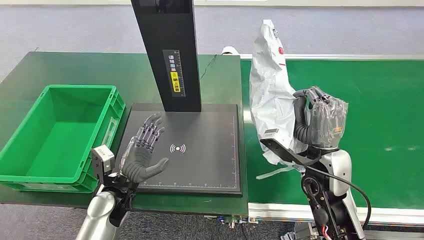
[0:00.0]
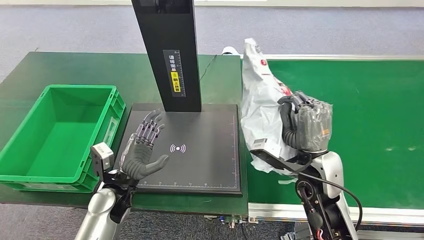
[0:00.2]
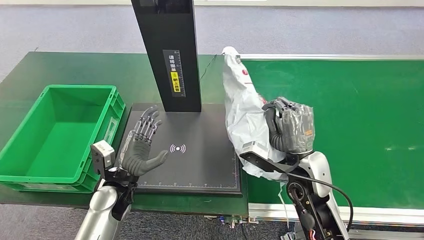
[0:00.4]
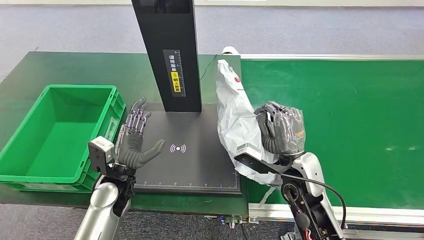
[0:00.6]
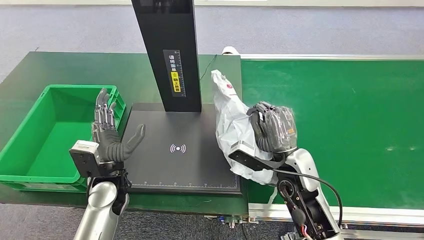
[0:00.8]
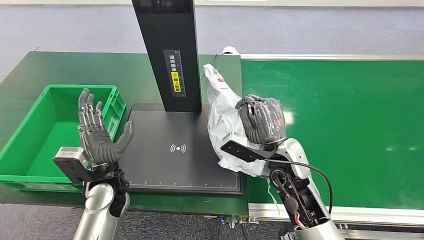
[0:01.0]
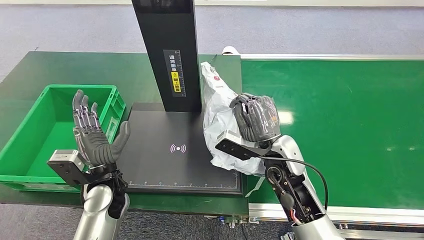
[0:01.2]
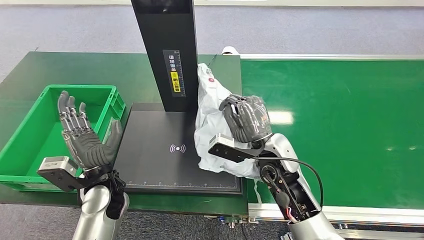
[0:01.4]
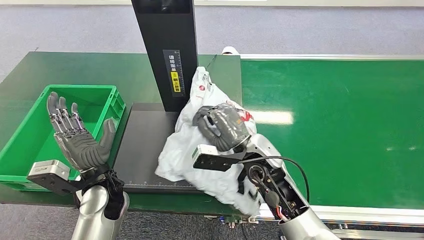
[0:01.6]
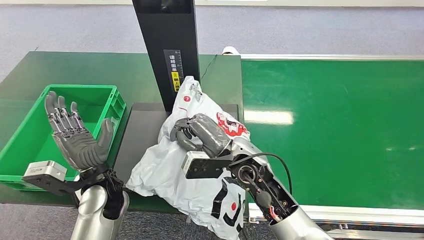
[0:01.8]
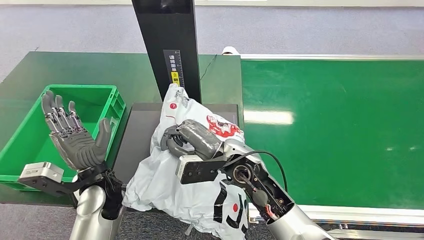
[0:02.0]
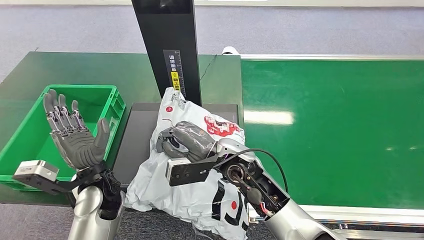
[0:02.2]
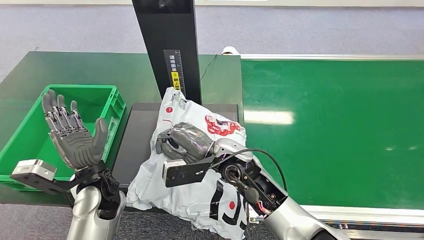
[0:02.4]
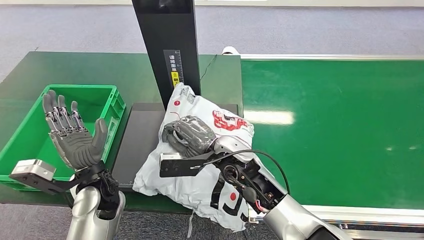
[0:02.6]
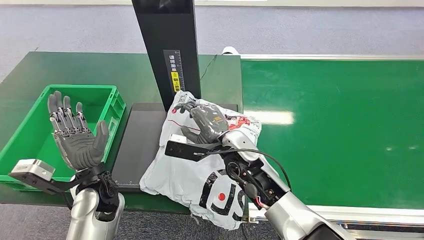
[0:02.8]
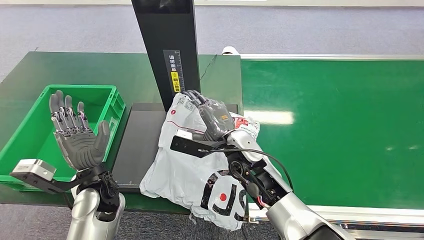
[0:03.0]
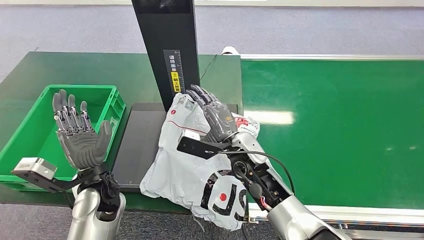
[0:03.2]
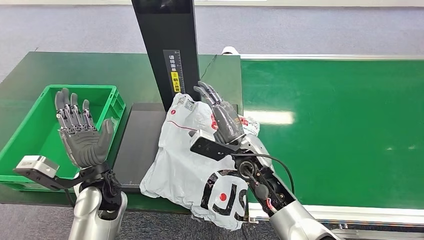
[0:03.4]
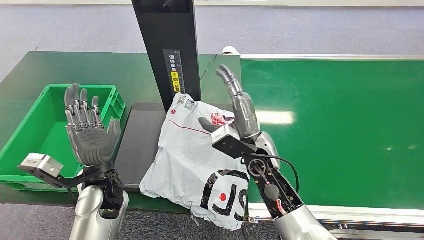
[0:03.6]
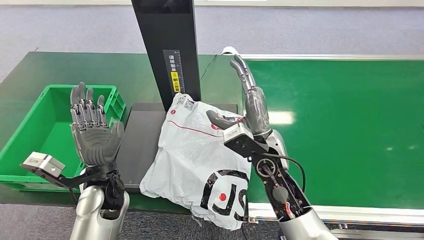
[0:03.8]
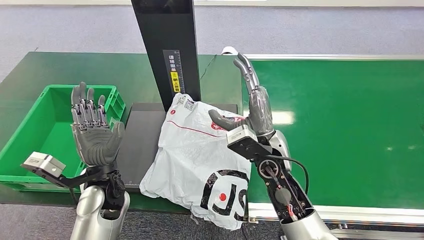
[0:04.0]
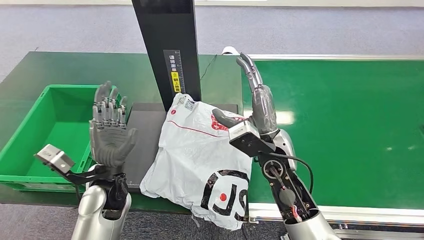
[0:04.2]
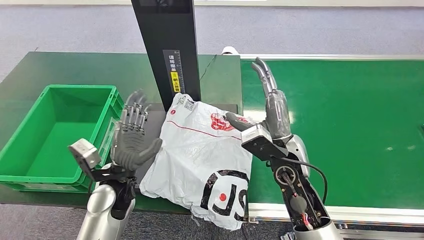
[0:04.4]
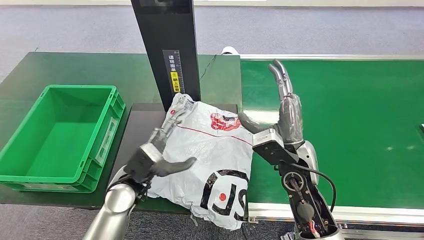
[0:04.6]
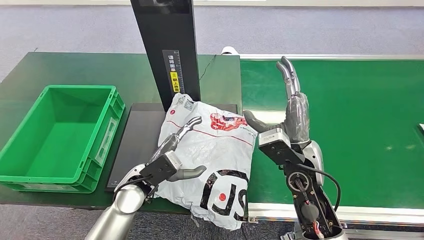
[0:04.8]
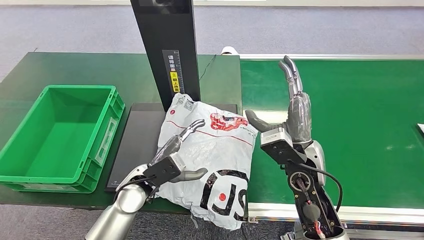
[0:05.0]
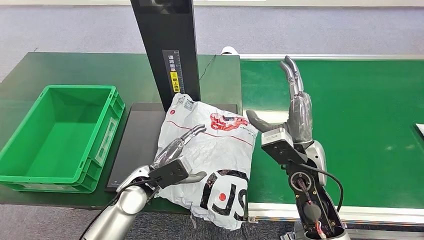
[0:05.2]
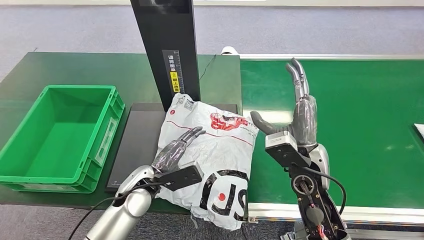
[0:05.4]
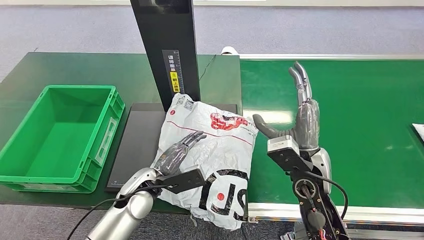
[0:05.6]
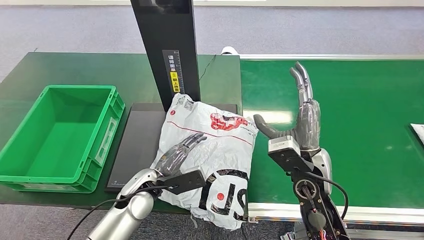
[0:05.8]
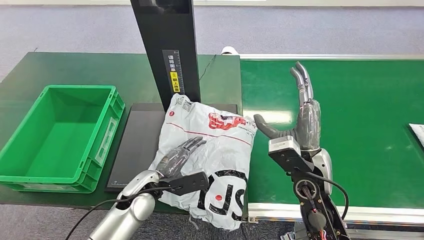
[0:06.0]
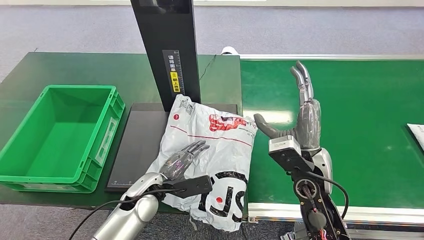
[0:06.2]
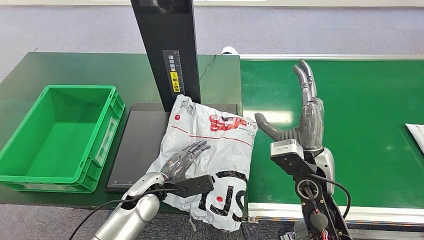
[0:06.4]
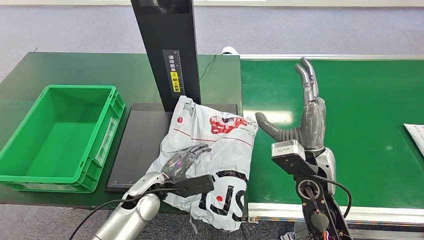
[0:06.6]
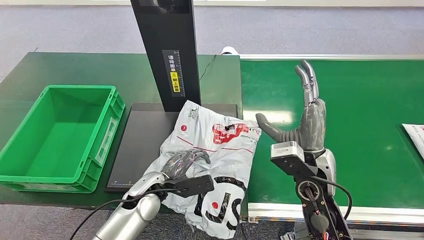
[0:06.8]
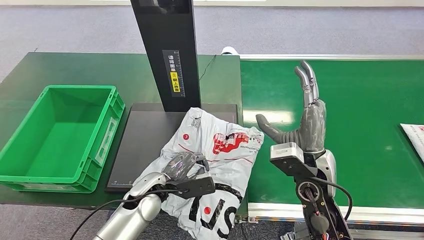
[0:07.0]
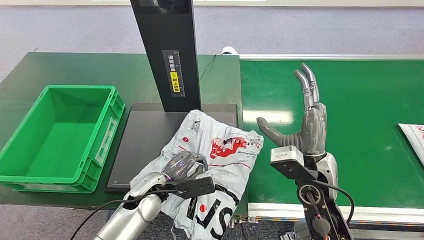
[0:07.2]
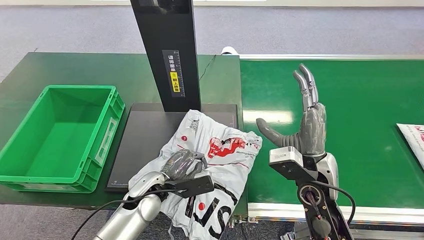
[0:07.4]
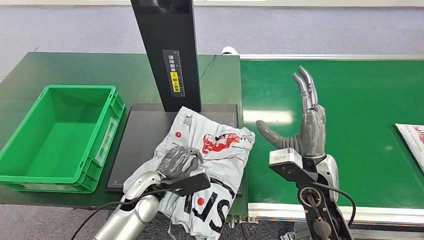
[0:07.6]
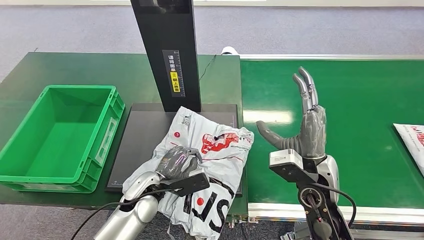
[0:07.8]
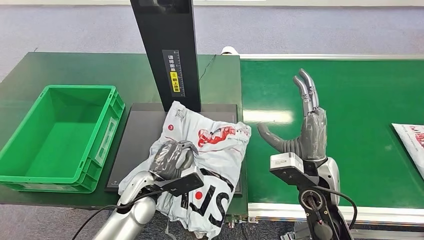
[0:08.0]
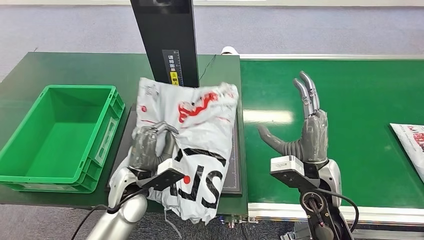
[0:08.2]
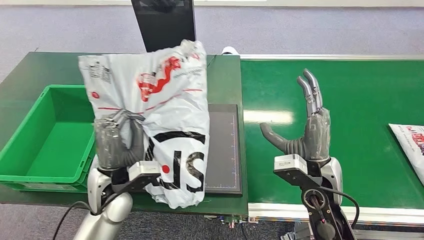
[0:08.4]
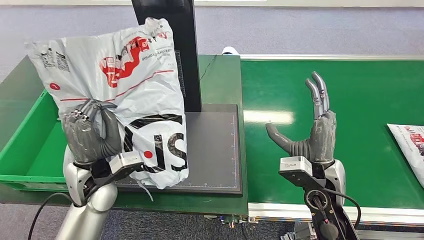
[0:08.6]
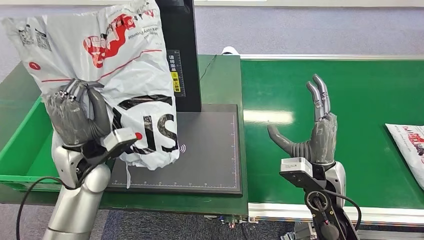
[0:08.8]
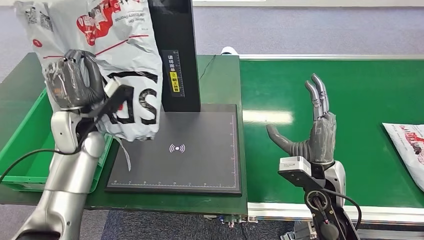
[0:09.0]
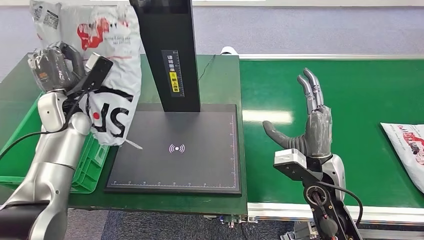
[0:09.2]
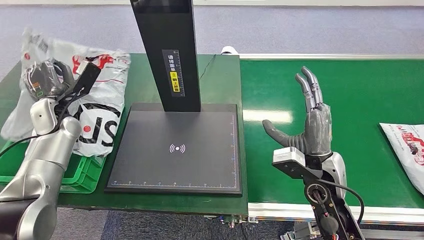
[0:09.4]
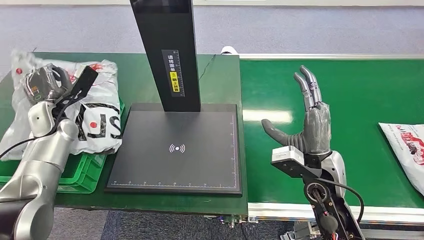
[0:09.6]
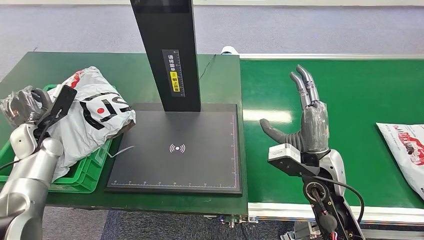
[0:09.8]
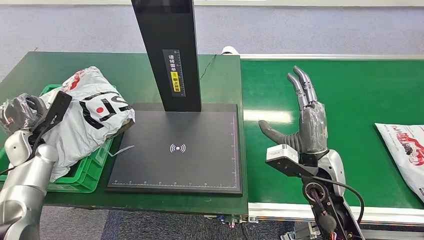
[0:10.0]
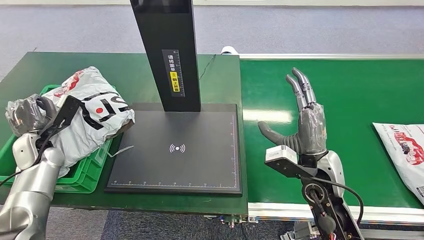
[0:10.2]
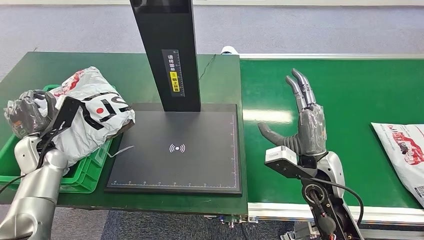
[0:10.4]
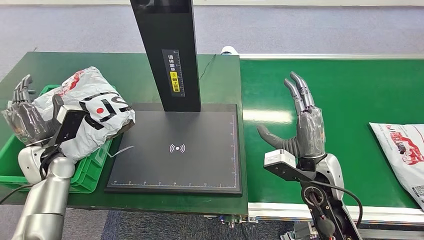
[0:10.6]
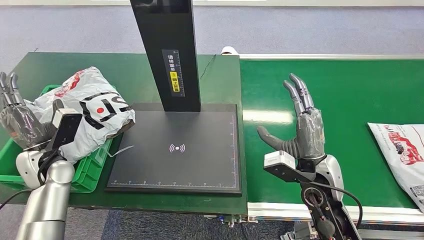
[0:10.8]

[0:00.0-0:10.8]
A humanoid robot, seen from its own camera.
Step, 0:08.6 to 0:08.8: Pick up the package from the inbound machine.
Step, 0:10.6 to 0:10.8: Place the package into the parcel locker.
0:04.6 to 0:06.2: The left hand shifts some 5 cm downward.
0:06.2 to 0:07.8: The hands make only small movements.

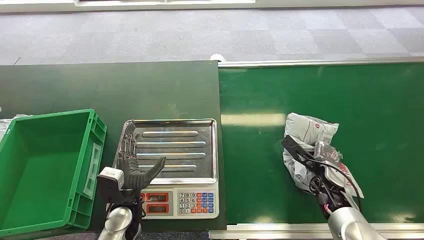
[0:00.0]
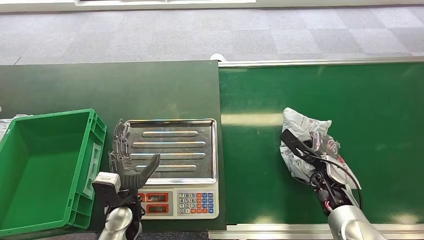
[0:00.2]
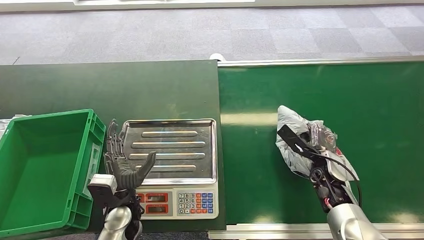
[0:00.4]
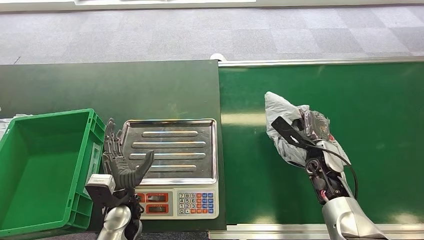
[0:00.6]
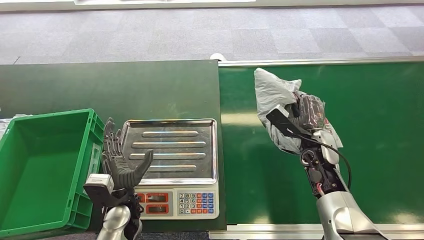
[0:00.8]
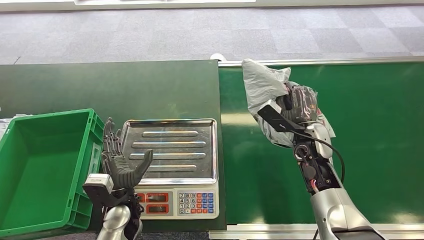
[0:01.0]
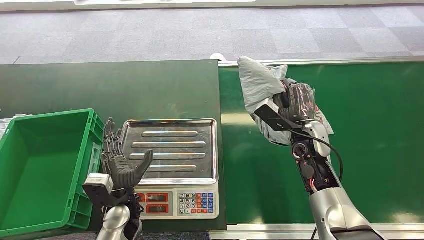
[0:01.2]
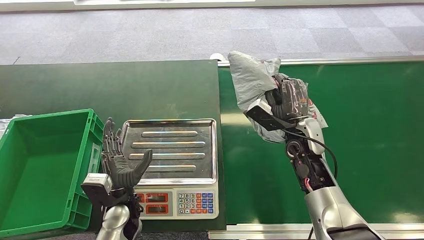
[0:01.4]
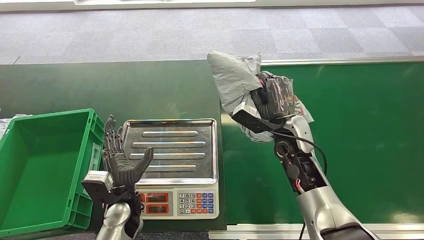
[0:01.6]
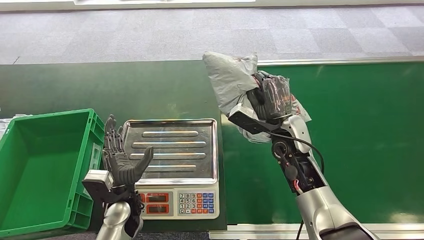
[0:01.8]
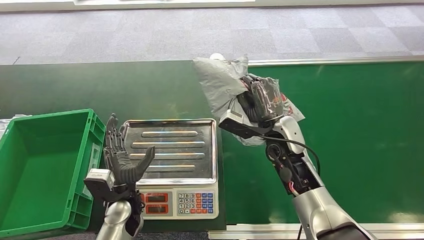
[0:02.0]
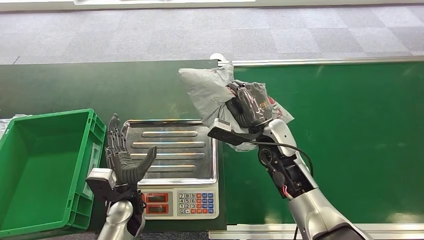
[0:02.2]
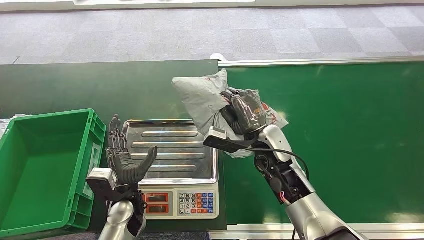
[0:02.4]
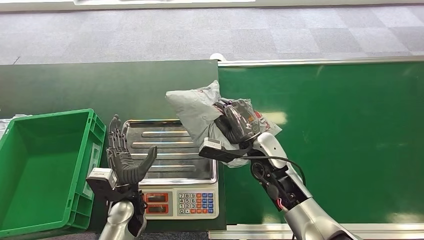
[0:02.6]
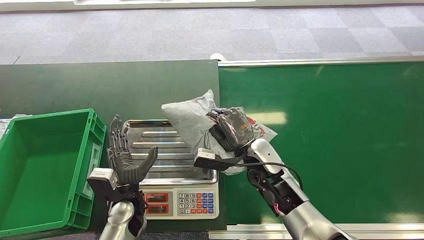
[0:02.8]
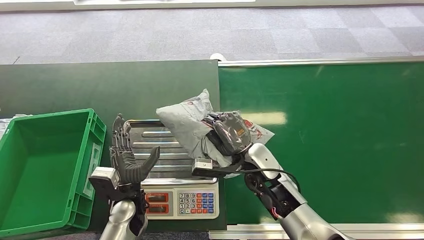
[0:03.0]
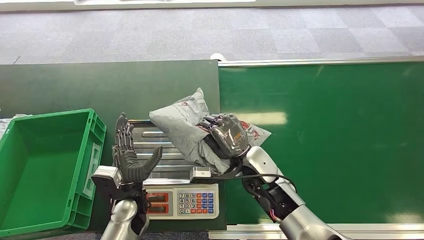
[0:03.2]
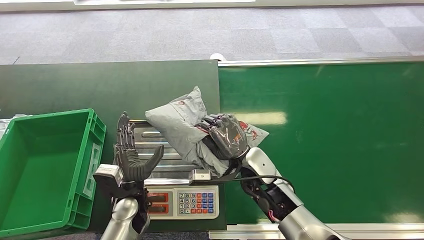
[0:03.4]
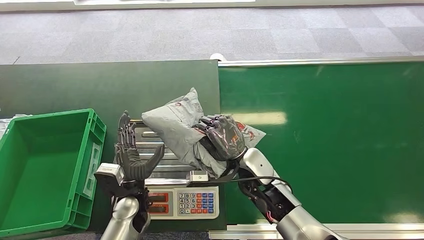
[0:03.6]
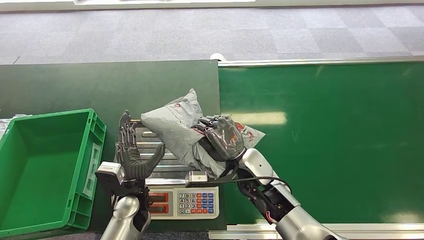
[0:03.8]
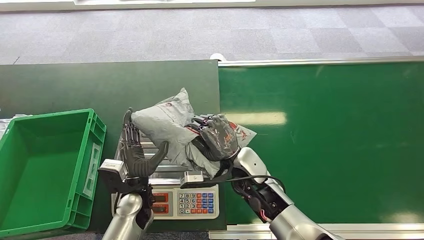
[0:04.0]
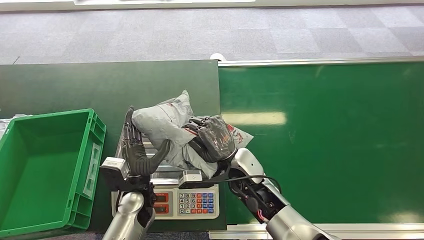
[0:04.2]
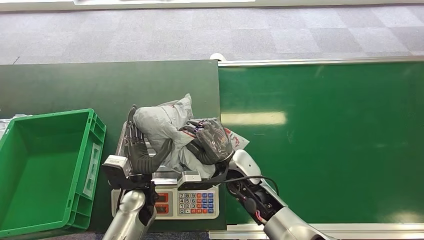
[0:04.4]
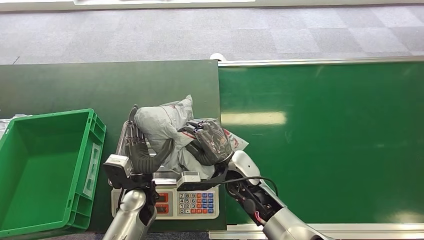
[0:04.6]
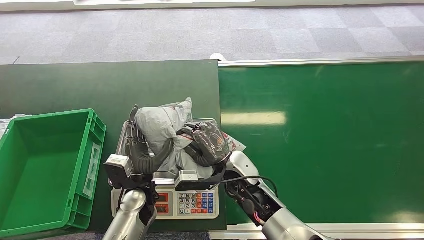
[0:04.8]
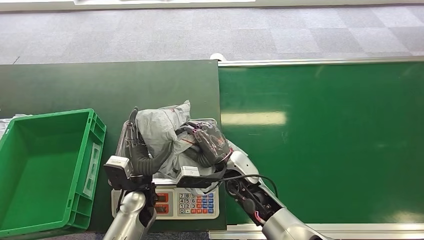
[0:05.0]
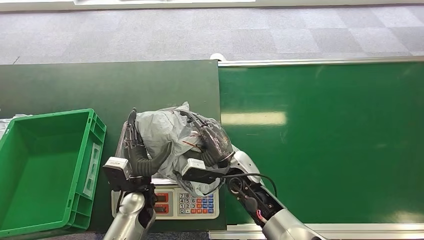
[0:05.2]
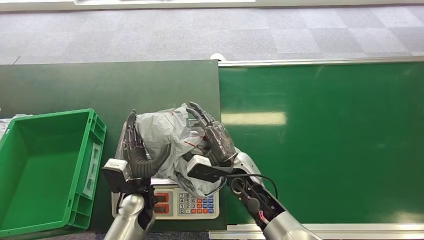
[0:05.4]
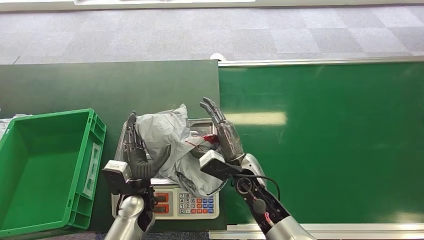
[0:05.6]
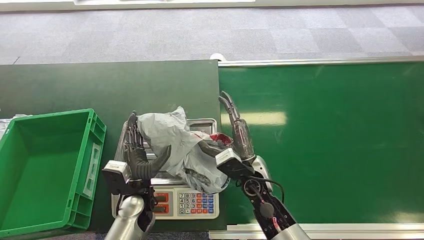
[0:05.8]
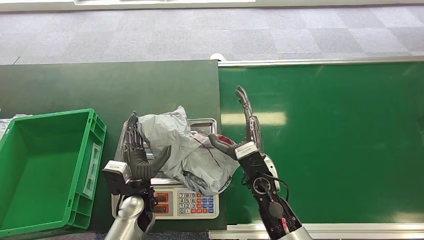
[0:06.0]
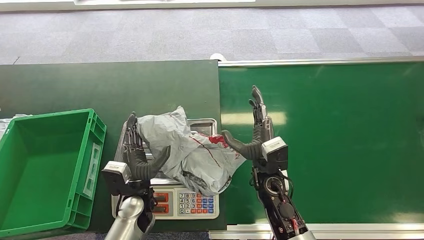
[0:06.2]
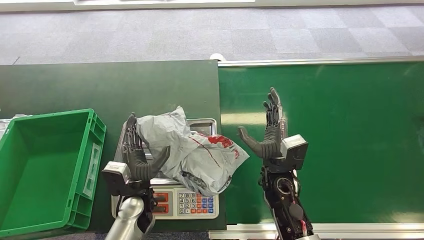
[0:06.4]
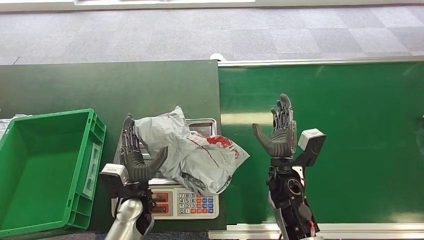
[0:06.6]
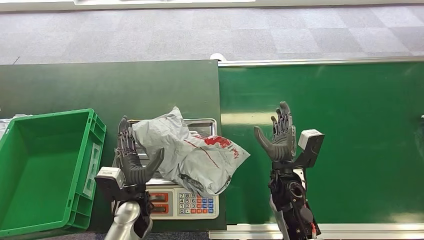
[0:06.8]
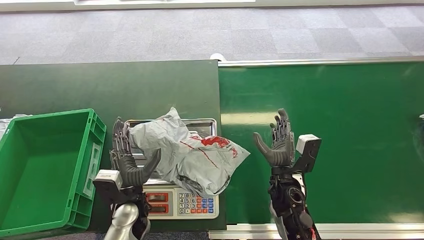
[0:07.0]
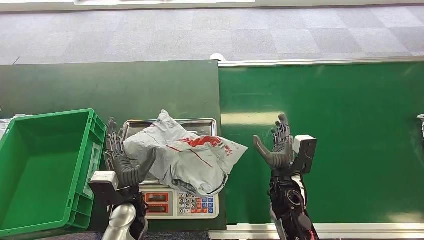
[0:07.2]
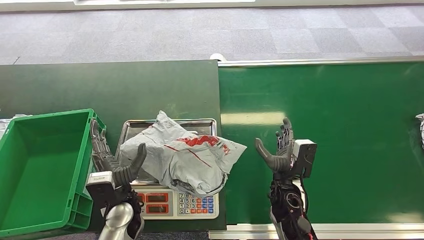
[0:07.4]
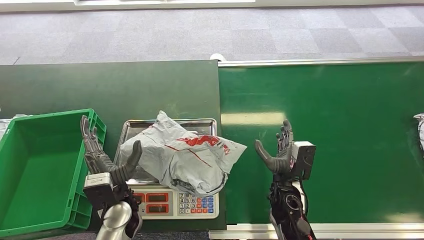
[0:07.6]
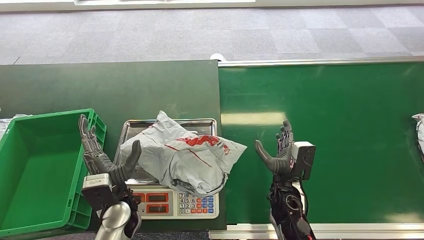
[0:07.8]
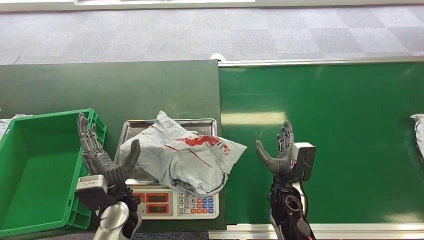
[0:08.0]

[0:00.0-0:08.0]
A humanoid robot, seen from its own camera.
Step, 0:00.0 to 0:01.6: Pick up the package from the conveyor belt.
Step, 0:02.6 to 0:05.6: Place the package onto the inbound machine.
0:03.2 to 0:04.8: The hands stay close to where they were, moving slightly.
0:04.8 to 0:06.4: The right hand moves to the right, approximately 5 cm.
0:06.4 to 0:08.0: The right hand travels downward by approximately 5 cm.
